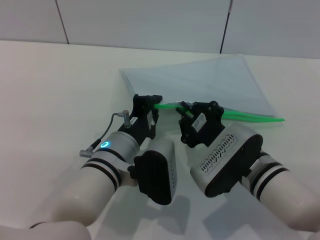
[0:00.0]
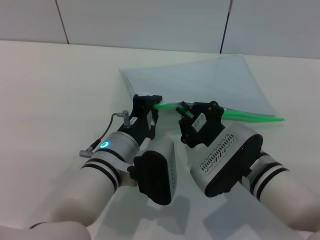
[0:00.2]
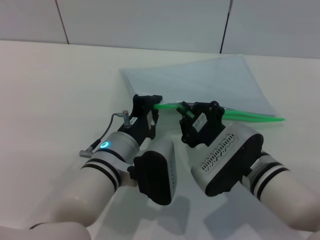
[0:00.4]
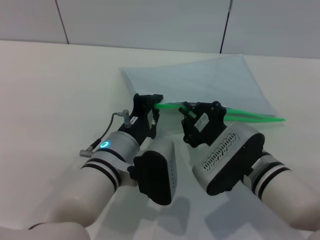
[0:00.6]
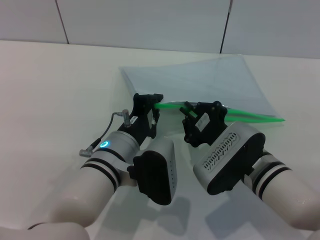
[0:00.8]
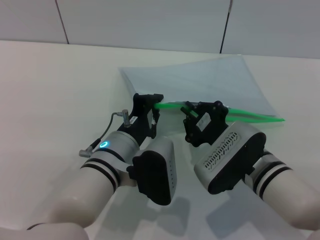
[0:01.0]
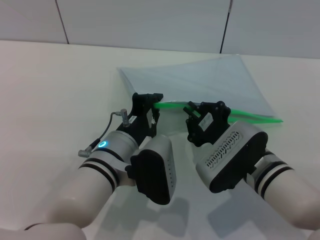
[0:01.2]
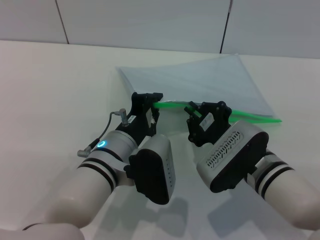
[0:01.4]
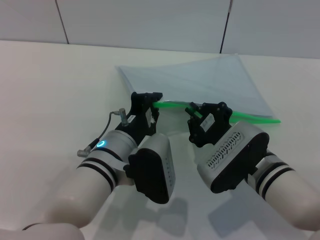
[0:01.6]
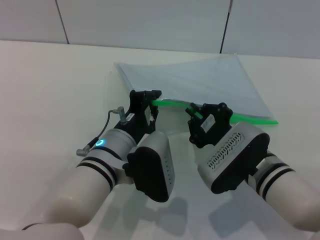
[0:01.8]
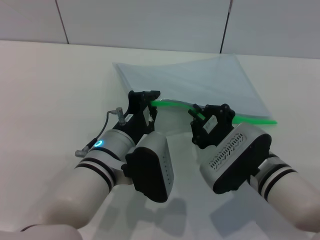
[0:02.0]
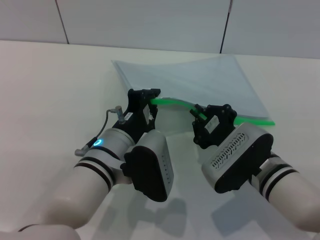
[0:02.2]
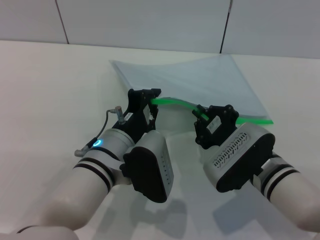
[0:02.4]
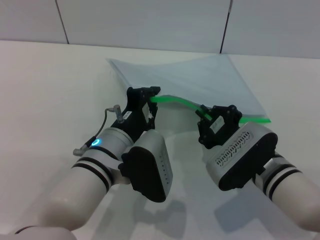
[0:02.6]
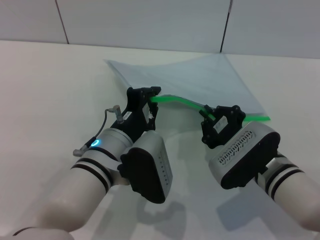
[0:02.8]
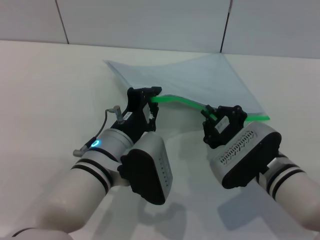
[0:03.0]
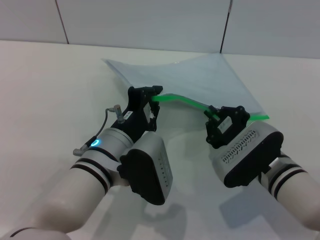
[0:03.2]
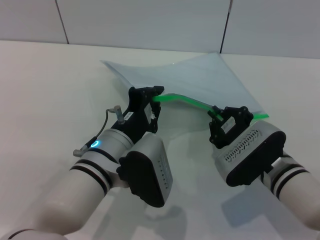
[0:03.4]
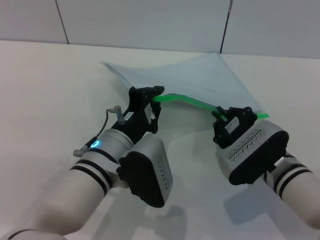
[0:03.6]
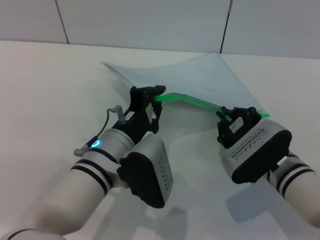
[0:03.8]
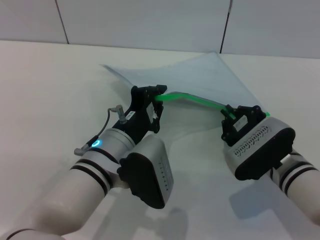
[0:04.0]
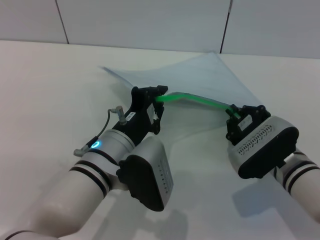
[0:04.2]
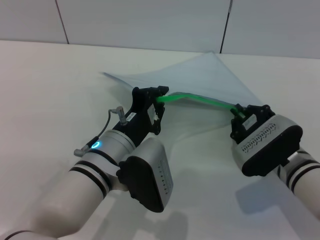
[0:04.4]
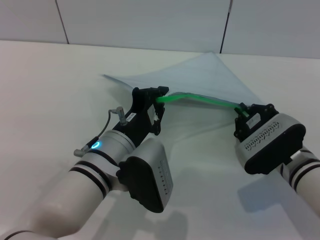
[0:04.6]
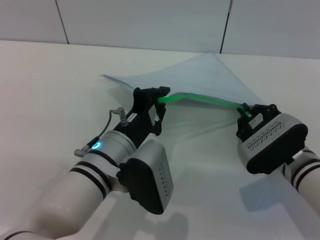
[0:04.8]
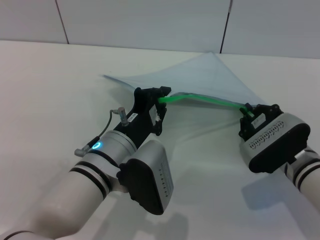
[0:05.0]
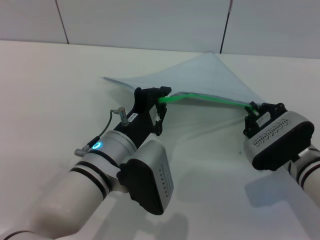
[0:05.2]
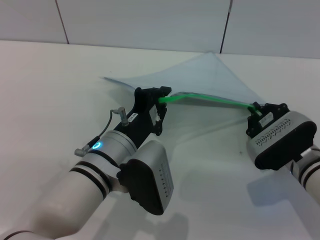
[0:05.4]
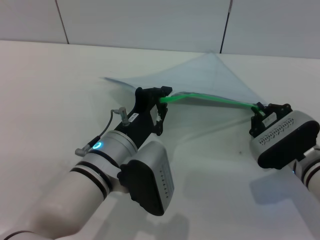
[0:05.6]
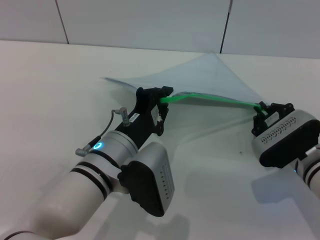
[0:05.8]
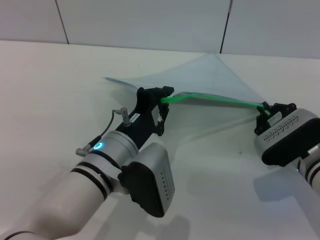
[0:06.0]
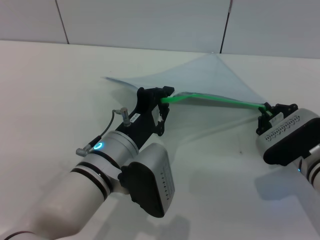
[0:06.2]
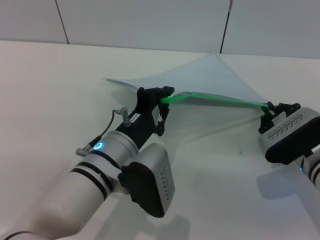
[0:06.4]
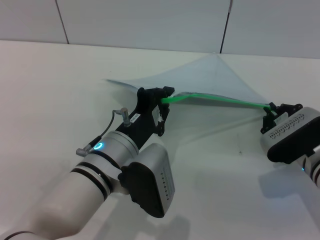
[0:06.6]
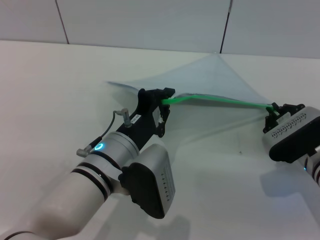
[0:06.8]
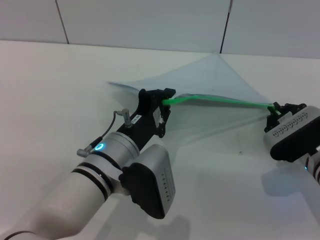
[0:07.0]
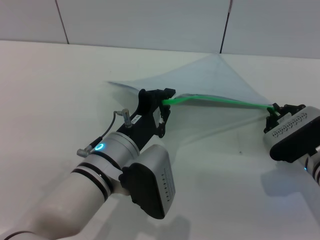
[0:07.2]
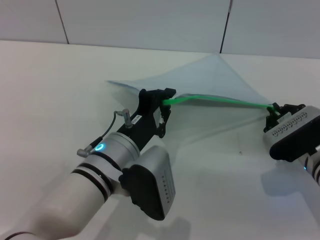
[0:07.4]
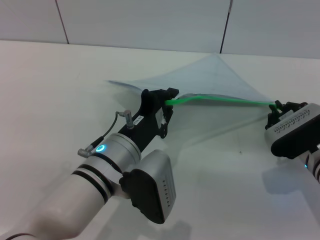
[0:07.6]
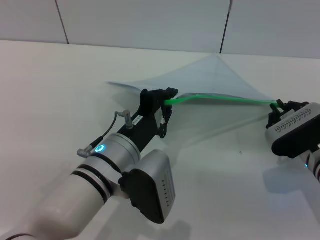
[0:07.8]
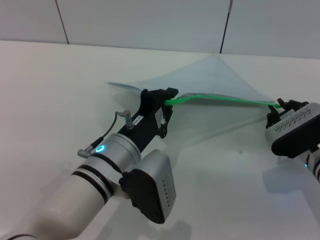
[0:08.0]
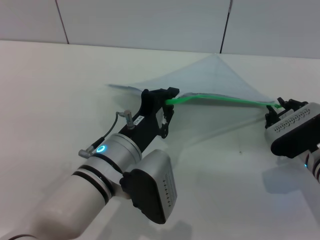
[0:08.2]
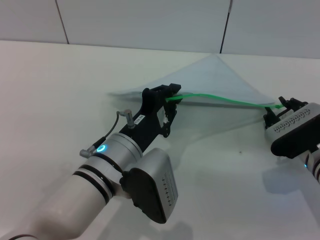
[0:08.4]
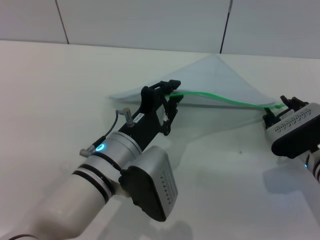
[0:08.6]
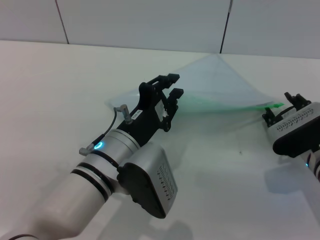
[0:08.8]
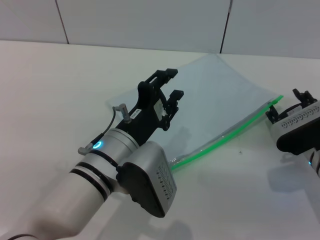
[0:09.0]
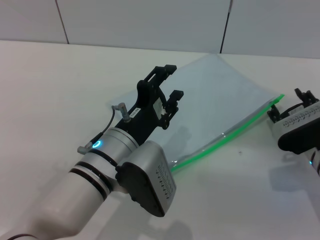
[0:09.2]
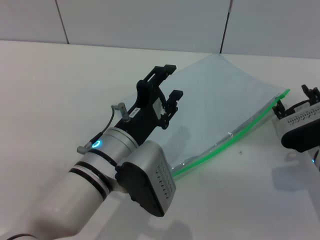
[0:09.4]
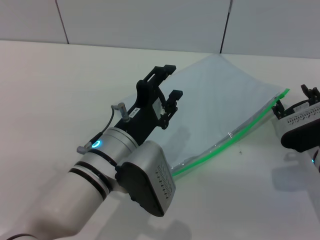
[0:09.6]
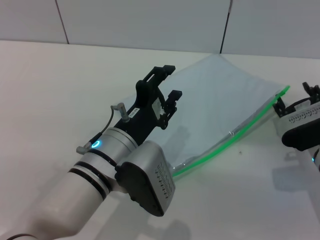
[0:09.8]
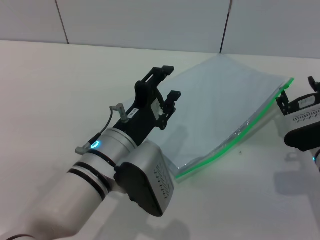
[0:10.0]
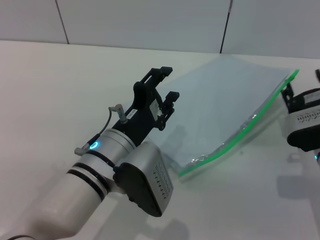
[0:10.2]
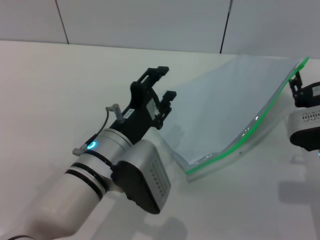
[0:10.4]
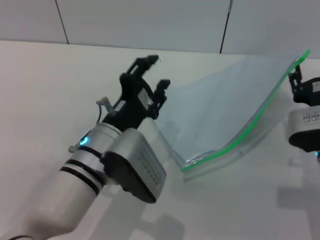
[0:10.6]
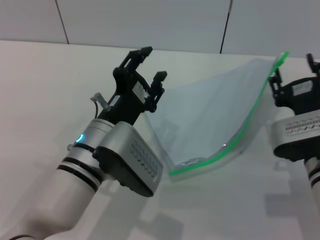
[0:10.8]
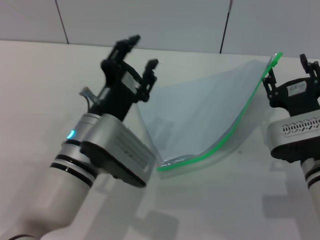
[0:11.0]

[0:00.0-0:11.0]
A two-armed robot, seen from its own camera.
Step, 0.0 to 8.6 s: Pulling up the zipper on the transparent plastic bag with the right gripper to close it.
0.0 to 1.6 s: Both grippers stay about where they are.
1.6 to 3.2 s: The grippers stay close to where they were, moving slightly.
3.2 to 4.8 s: The grippers stay close to where they were, moving slightly.
4.8 to 6.2 s: The grippers make only small movements.
6.2 to 7.8 s: Both grippers stay put.
7.8 to 9.4 s: The left gripper opens up, while the right gripper opens.
9.4 to 11.0 s: The right gripper shifts by roughly 5 cm.

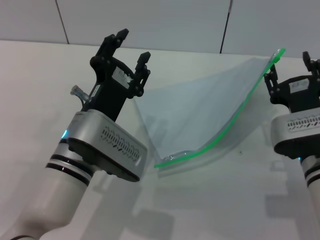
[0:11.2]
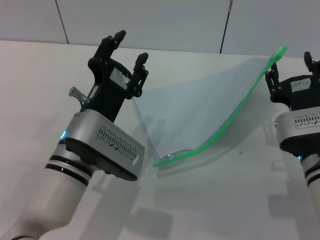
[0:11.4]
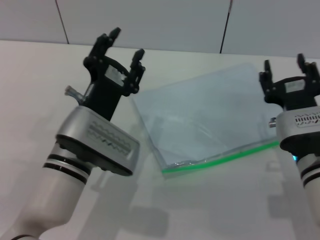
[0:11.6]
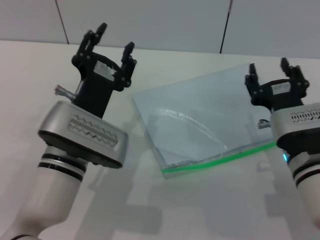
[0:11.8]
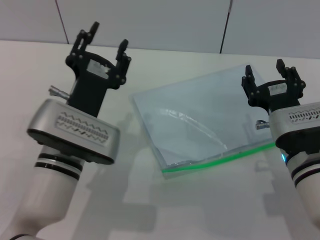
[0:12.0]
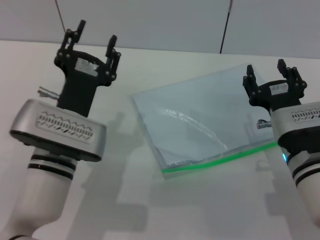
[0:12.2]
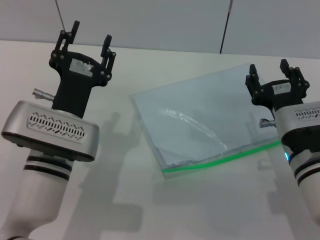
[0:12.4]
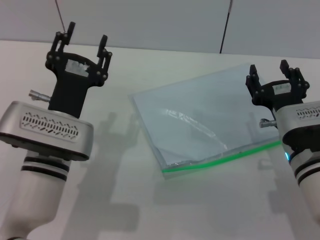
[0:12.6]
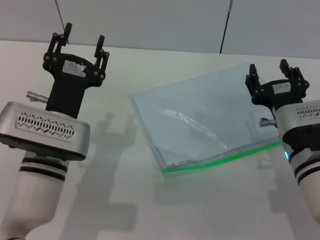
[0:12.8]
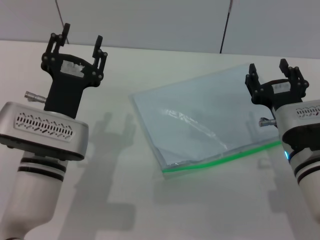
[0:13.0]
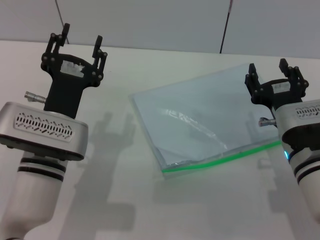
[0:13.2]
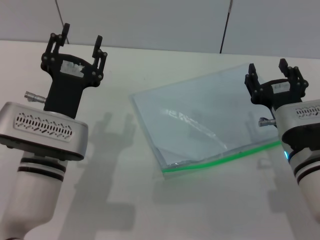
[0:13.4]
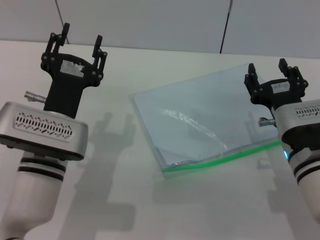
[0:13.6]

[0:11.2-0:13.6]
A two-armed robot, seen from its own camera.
12.4 to 13.6 s: Both grippers stay about where they are.

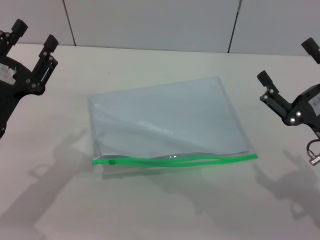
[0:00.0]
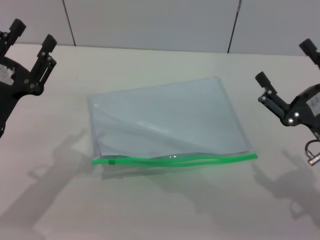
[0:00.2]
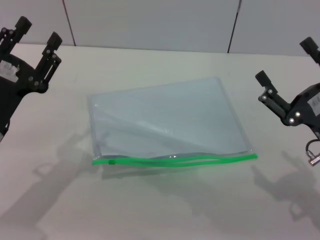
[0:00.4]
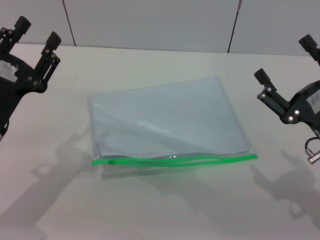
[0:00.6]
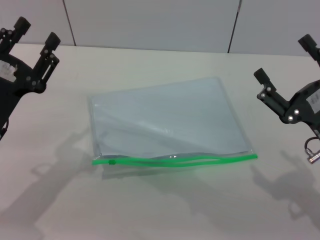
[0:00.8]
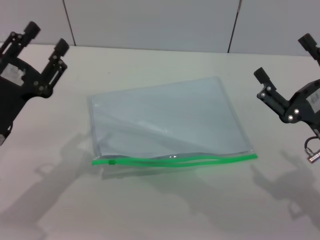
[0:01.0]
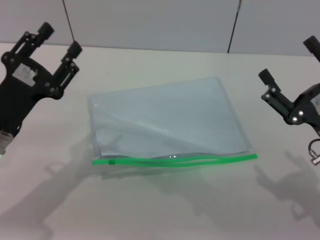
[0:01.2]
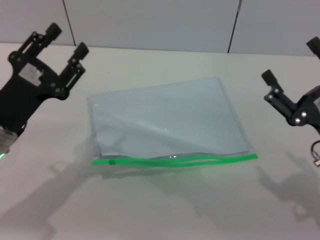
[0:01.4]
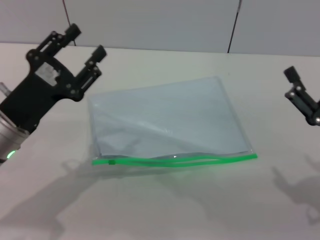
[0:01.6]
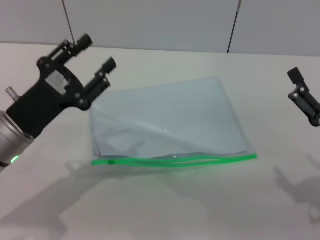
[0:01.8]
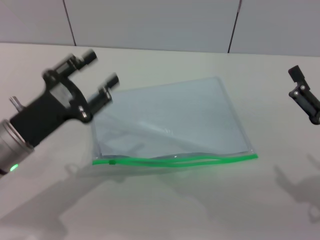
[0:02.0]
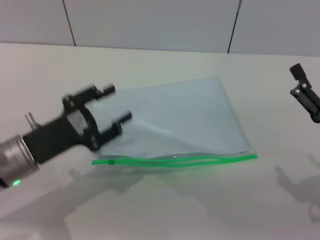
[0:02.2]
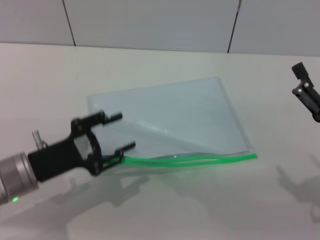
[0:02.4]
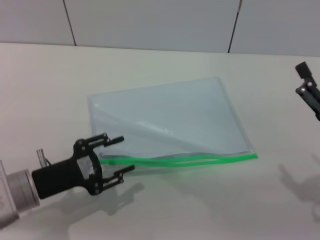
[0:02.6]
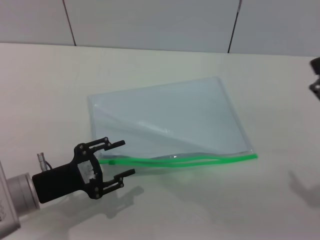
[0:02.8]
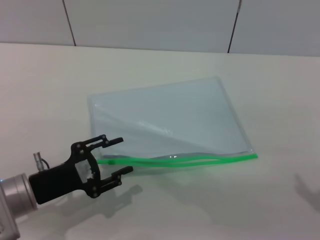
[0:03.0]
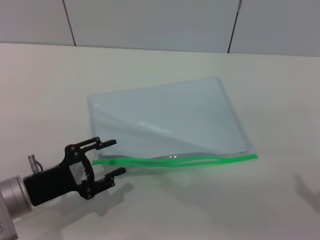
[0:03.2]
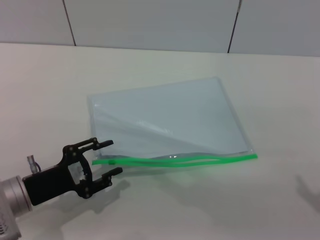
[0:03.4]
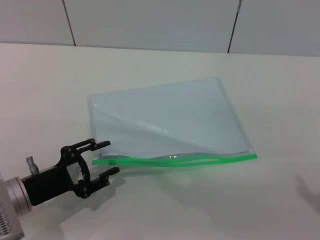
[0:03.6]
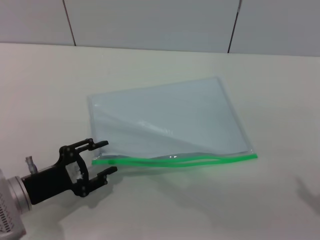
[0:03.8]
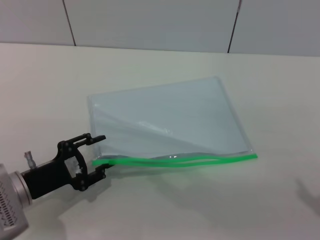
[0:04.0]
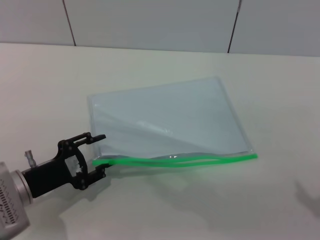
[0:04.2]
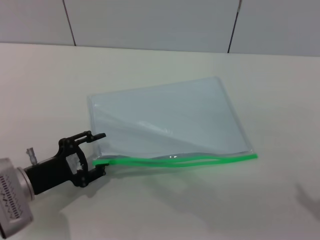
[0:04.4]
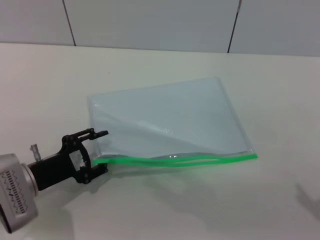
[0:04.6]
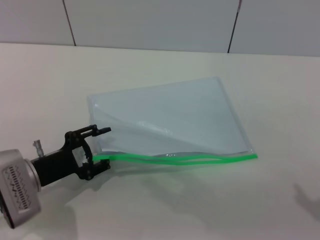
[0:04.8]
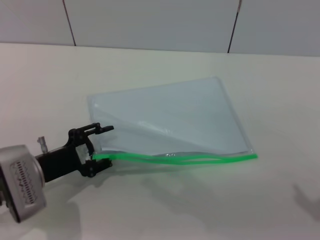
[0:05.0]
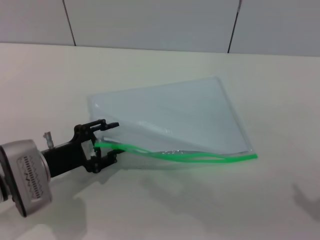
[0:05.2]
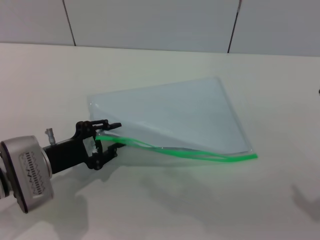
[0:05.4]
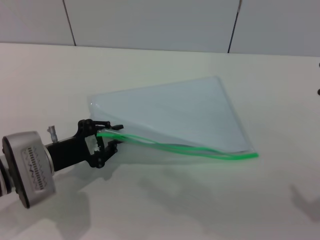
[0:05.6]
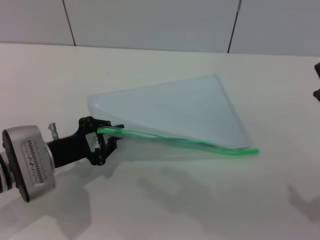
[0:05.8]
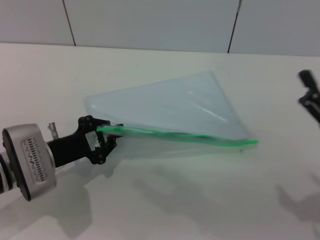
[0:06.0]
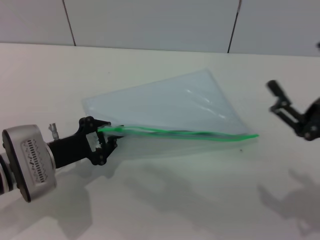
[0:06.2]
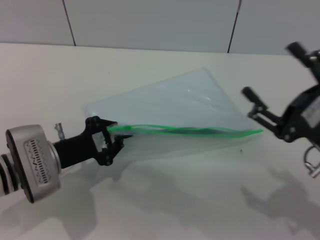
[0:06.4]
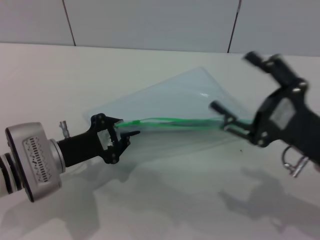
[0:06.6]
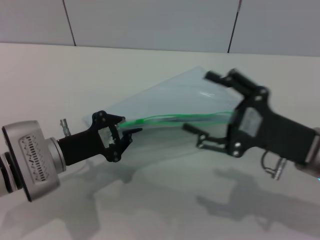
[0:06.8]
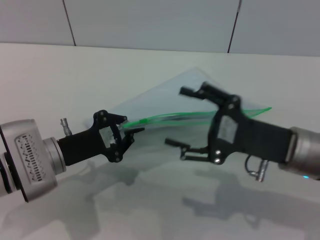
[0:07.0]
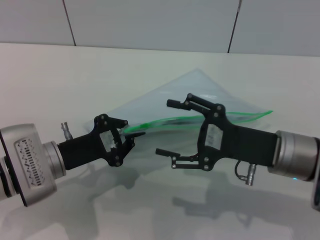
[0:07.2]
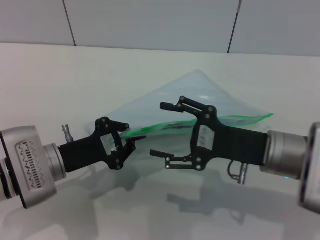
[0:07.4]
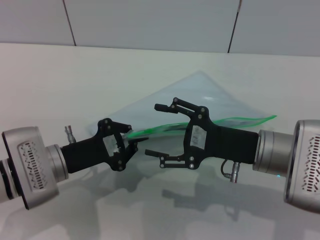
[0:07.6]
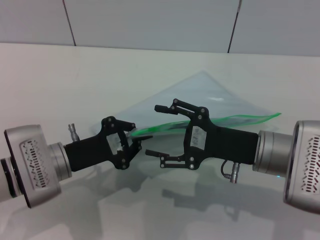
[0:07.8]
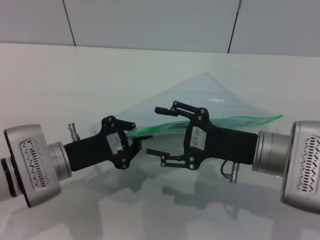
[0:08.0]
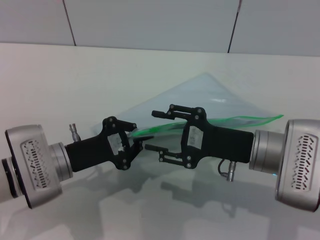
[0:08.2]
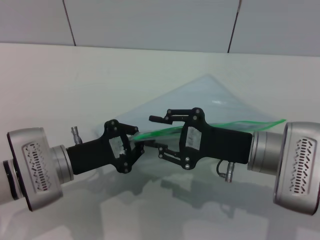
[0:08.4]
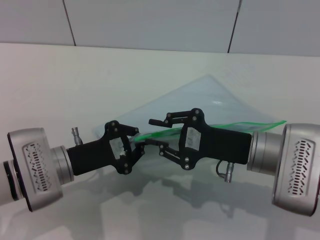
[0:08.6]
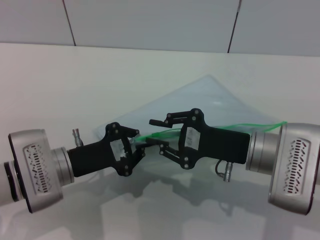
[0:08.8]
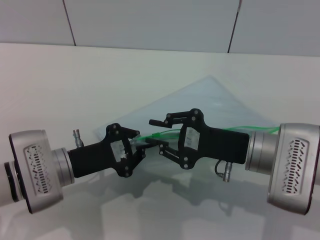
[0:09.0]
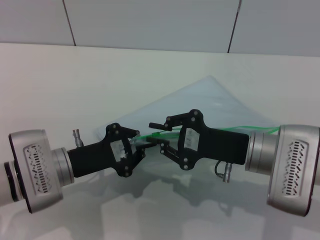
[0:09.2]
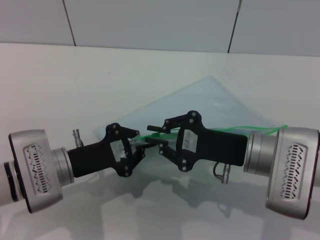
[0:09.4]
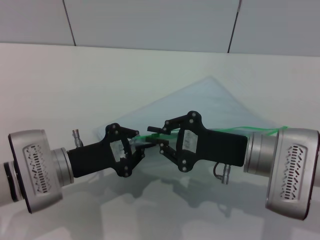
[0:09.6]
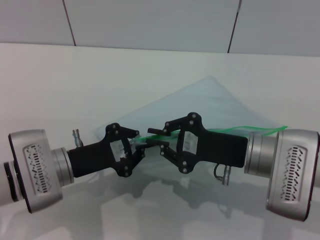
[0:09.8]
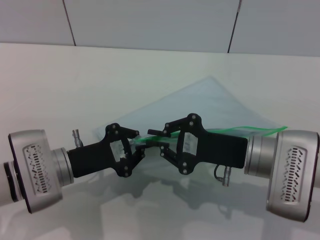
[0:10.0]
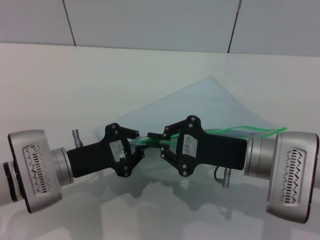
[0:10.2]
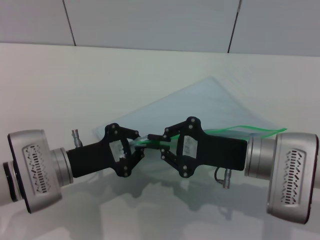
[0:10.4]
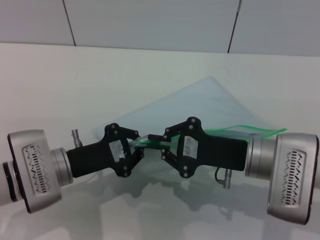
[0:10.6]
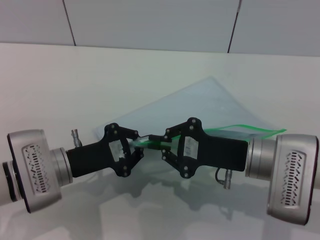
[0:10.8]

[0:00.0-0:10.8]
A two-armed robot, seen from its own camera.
Step, 0.0 to 6.6 s: Pick up the transparent plastic bag with the left gripper.
0.0 to 1.6 s: The grippers make only small movements.
1.6 to 3.0 s: The left gripper heads downward, covering roughly 5 cm.
3.0 to 4.6 s: The grippers move only a little.
4.6 to 6.2 s: The left gripper closes up.
6.2 to 7.8 s: The right gripper travels to the left and forward by roughly 10 cm.
7.8 to 9.2 s: The right gripper closes.
9.2 to 10.8 s: Both grippers stay put.
